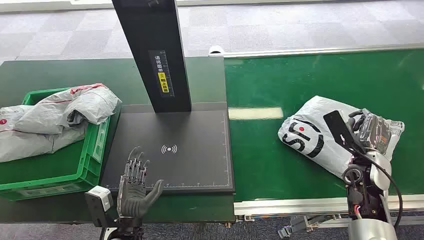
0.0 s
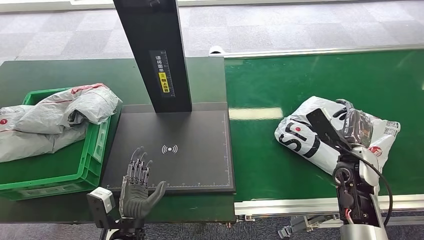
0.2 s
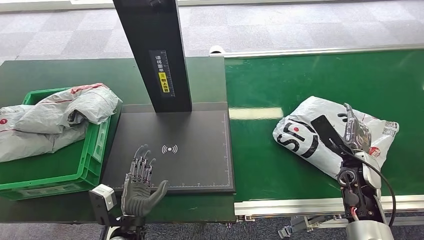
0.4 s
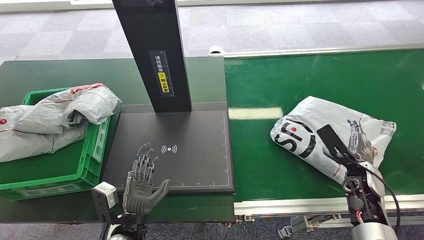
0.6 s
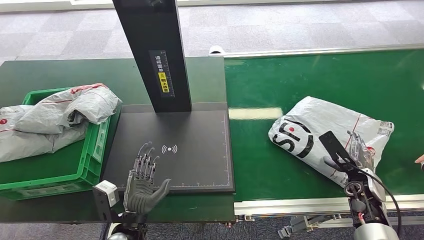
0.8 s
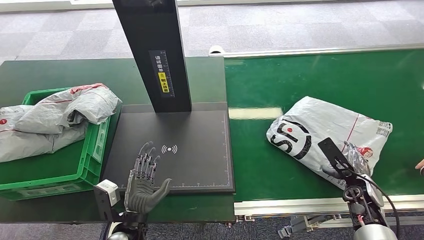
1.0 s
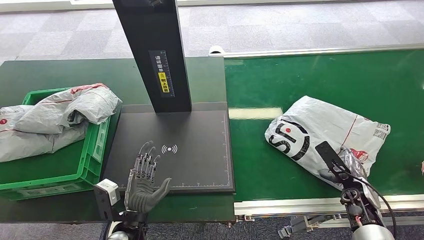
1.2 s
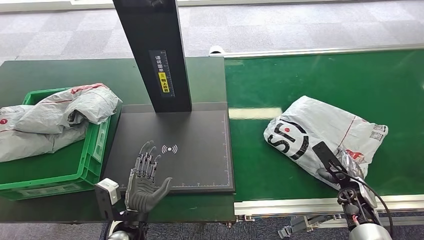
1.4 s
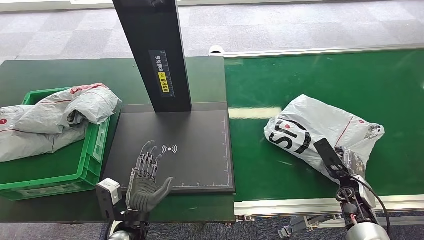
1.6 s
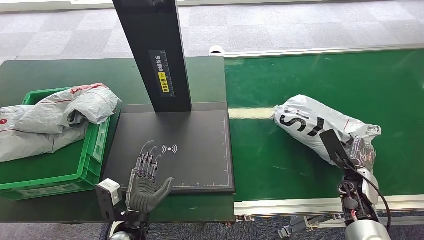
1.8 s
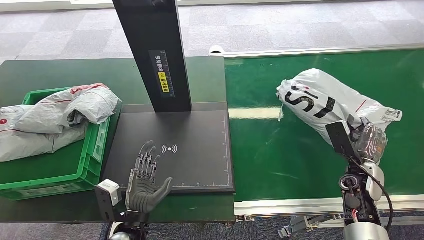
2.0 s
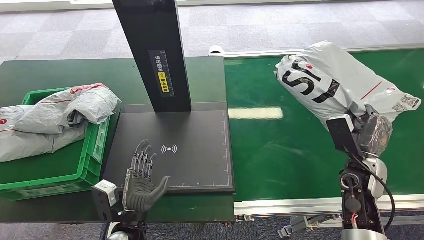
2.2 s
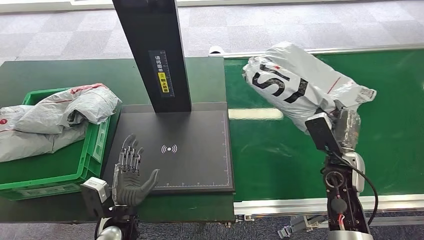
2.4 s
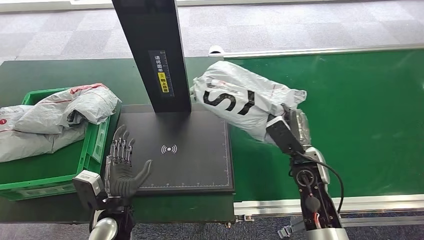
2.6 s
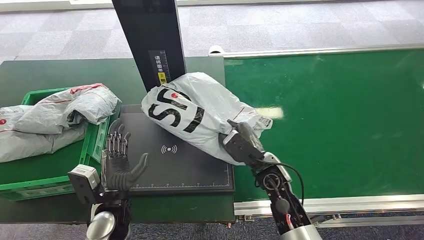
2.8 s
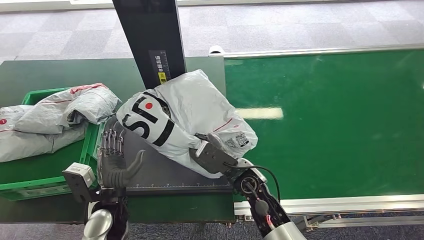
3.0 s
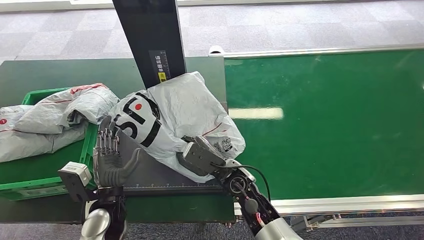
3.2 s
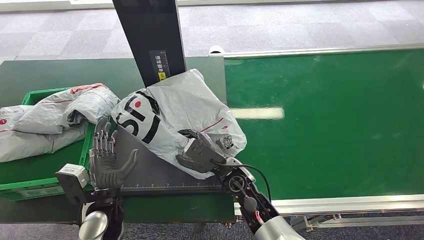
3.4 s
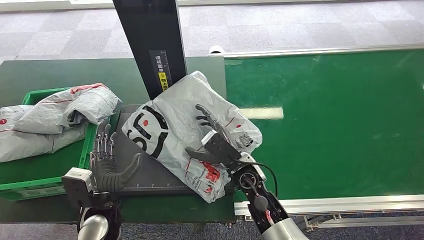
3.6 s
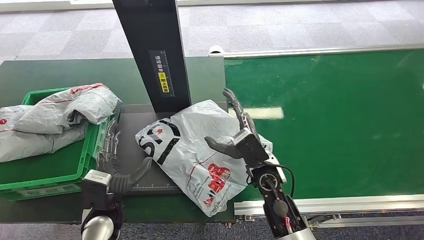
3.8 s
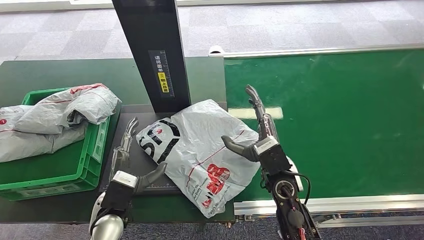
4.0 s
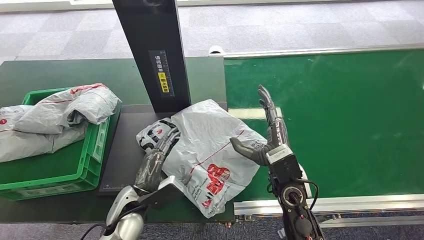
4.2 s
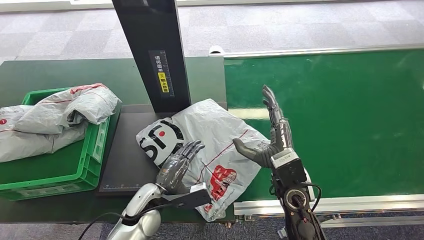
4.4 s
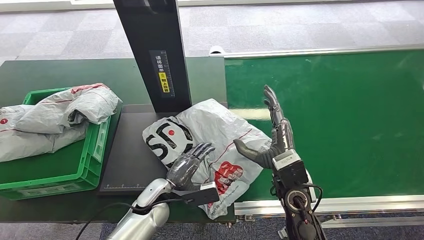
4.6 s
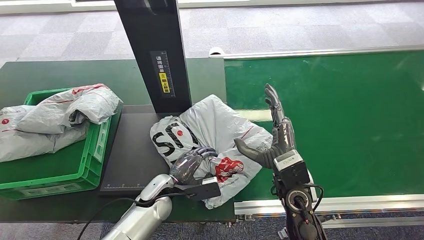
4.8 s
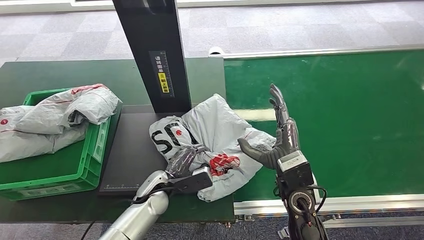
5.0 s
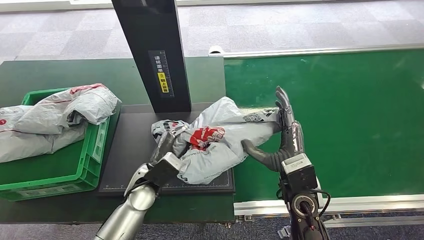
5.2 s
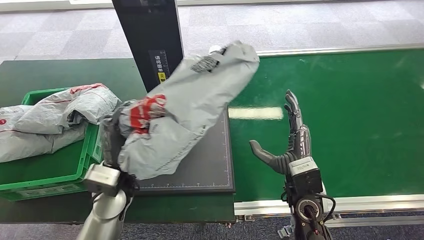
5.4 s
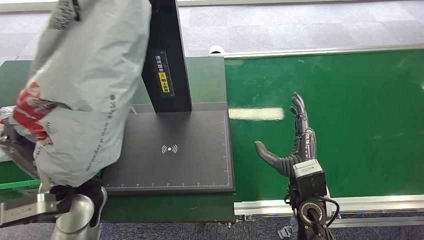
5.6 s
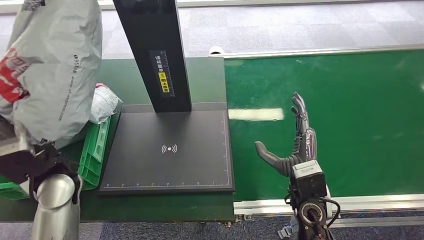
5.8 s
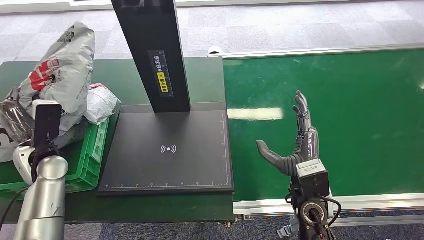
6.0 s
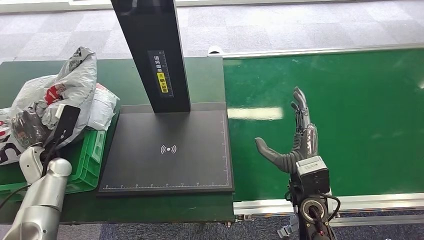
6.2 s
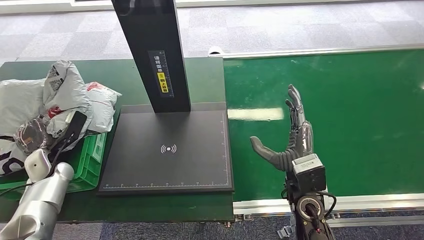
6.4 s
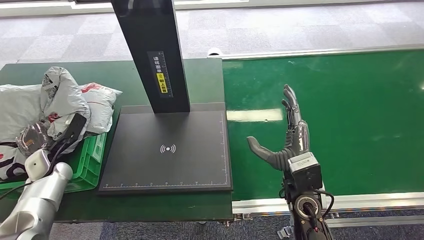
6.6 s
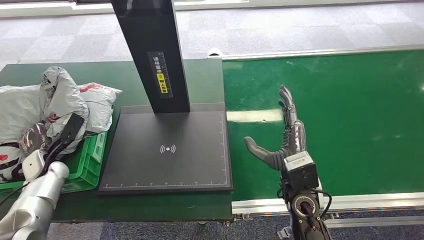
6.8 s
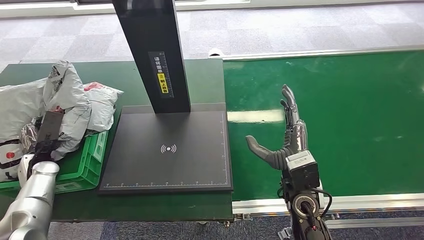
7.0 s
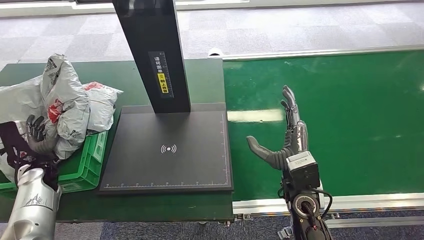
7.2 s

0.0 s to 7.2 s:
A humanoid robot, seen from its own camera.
Step, 0.0 to 2.0 s: Pick up the package from the conveyor belt.
Step, 2.2 to 3.4 s: Place the package onto the inbound machine.
Step, 3.6 to 5.2 s: Pick up the package from the inbound machine.
Step, 5.4 to 7.2 s: Place the package into the parcel locker.
2.8 to 4.4 s: The left hand heads to the right, covering approximately 5 cm; the right hand travels to the left and back again, about 10 cm each way.
